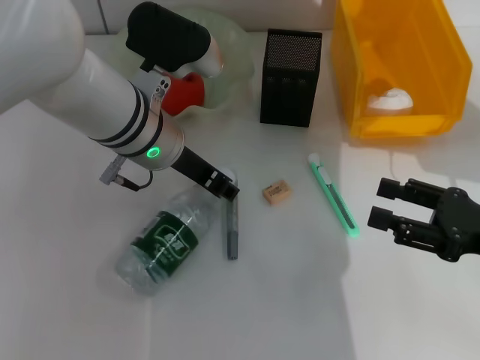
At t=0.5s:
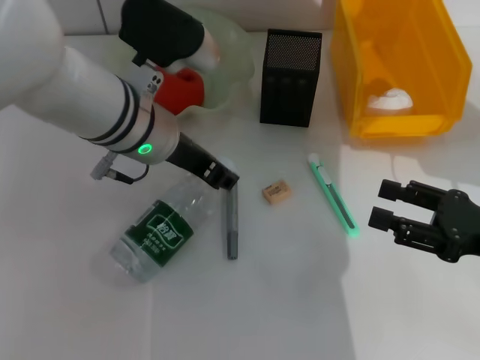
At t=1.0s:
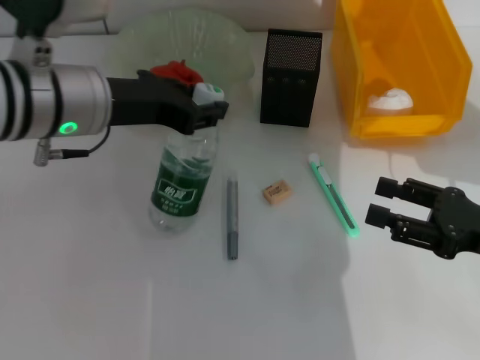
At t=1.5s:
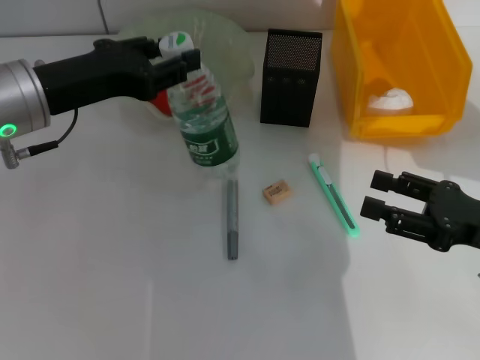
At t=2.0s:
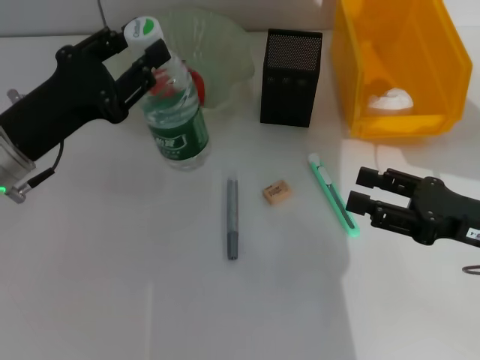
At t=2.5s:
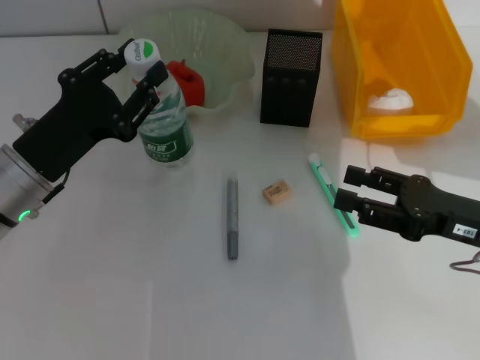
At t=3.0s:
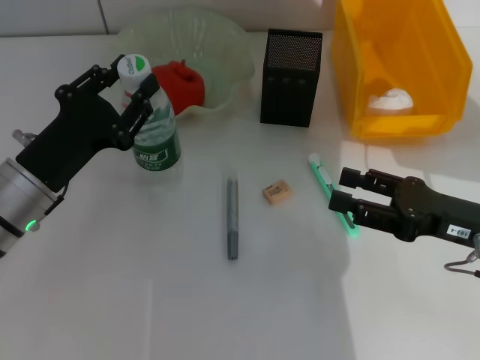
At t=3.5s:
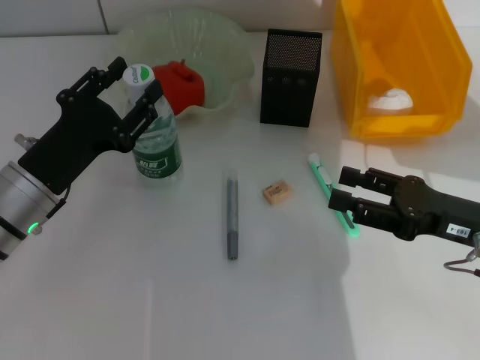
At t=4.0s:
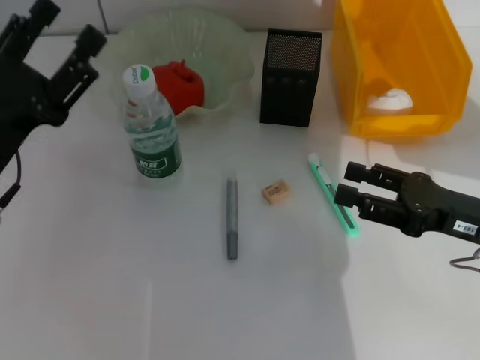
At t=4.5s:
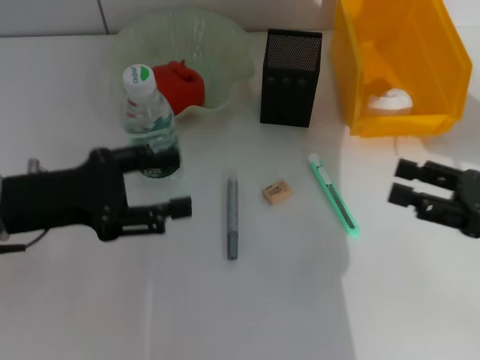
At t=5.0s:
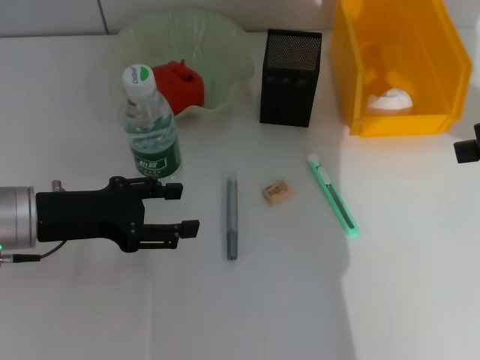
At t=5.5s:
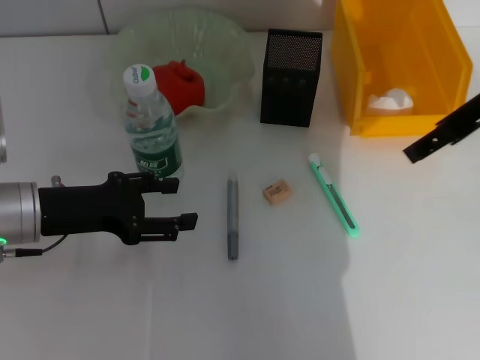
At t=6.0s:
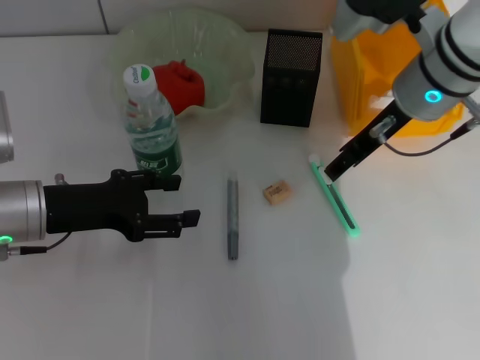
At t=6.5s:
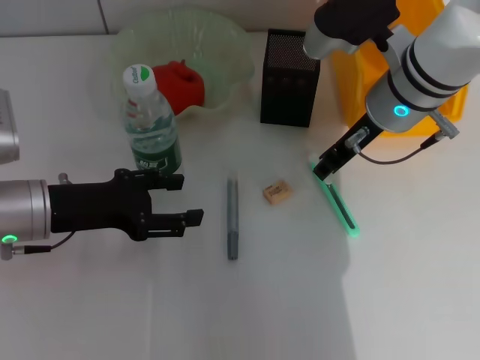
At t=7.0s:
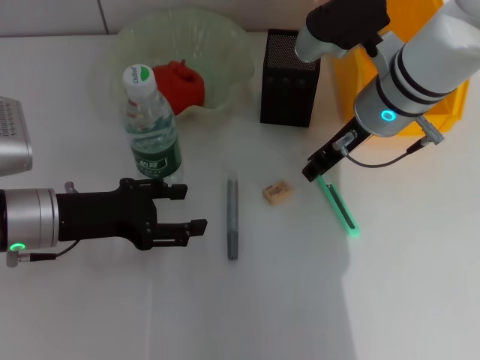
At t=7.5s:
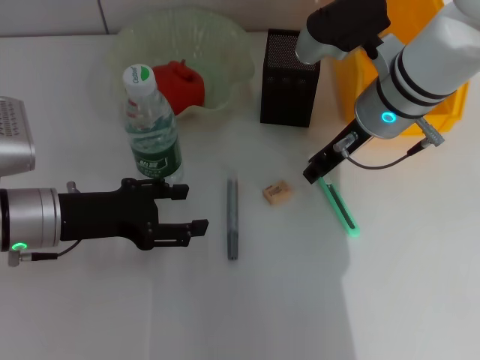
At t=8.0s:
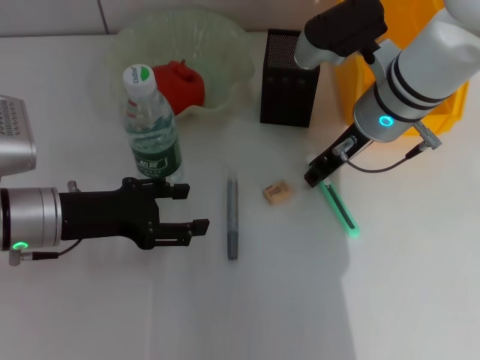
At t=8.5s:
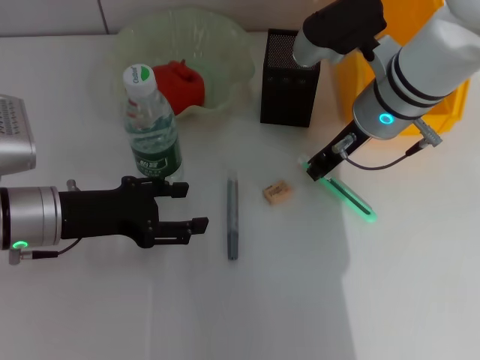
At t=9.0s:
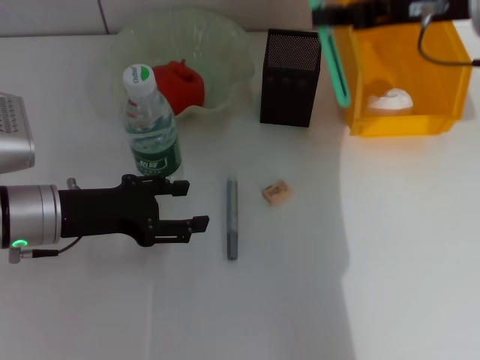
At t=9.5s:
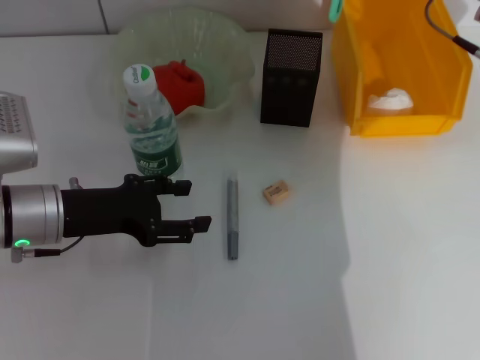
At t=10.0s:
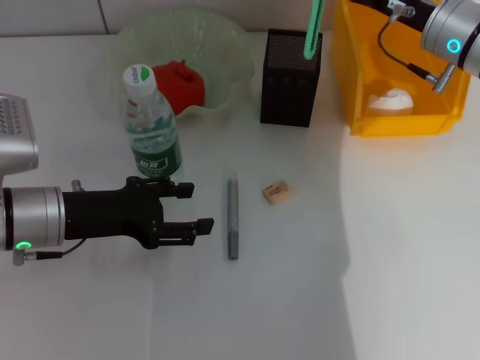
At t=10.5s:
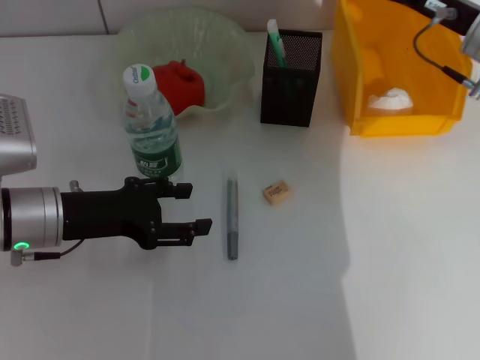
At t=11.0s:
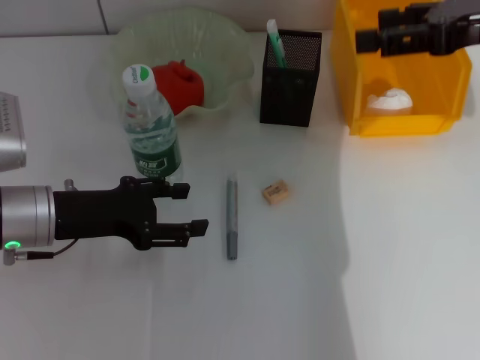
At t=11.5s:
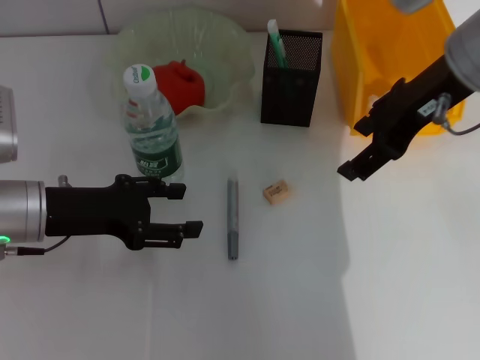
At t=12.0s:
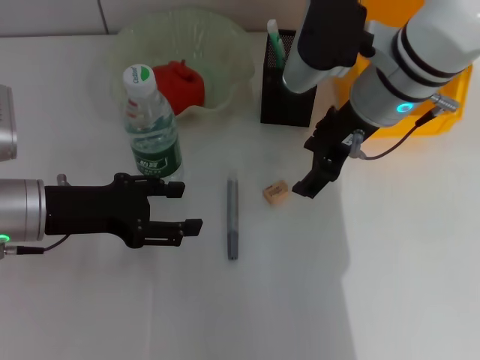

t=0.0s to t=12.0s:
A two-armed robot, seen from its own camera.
Step, t=0.5s to t=4.0s: Place the water bottle on the table with the left hand.
Step, t=4.5s to t=8.0s: Grab the blue utility knife with the right hand.
Step, t=8.5s to t=10.0s: Place the blue utility knife into the pen holder with the right hand.
t=0.0s to t=2.0s: The left gripper is displaced to the left and backward by some 15 cm.
t=2.0s to t=4.0s: The left gripper opens.
t=4.0s to t=6.0s: The right gripper is displaced forward, to the left and upward by some 20 cm.
t=6.0s to t=8.0s: The right gripper closes its fingers.
t=8.0s to t=10.0s: The right gripper shifts about 10 cm to the right.
t=10.0s to t=12.0s: The right gripper shifts approximately 10 cm to the left, and opens its fingers.

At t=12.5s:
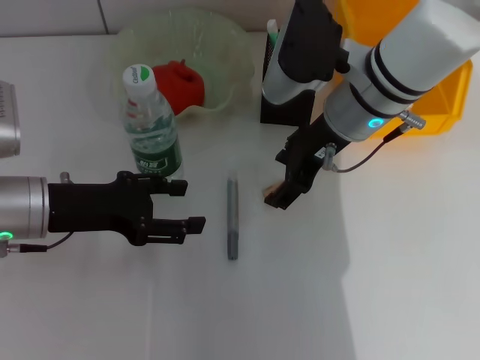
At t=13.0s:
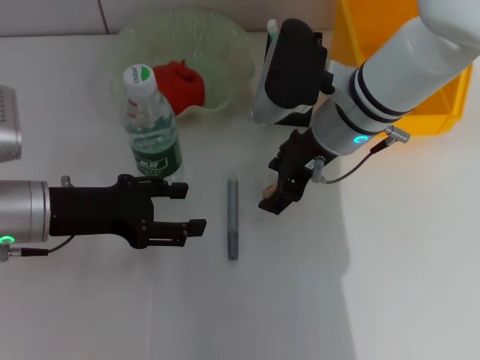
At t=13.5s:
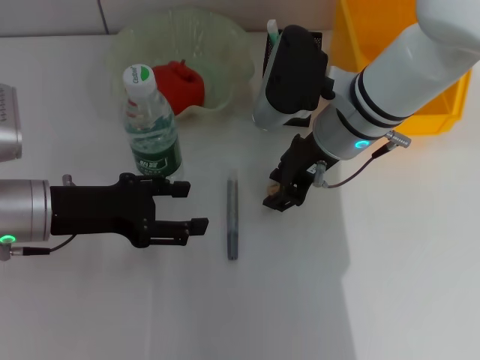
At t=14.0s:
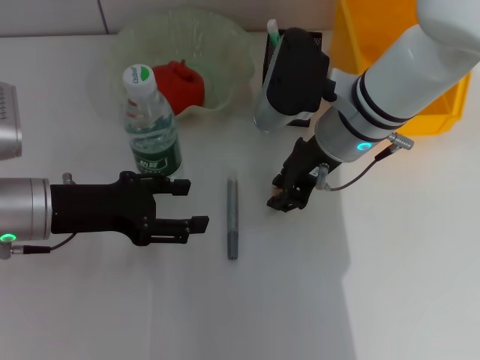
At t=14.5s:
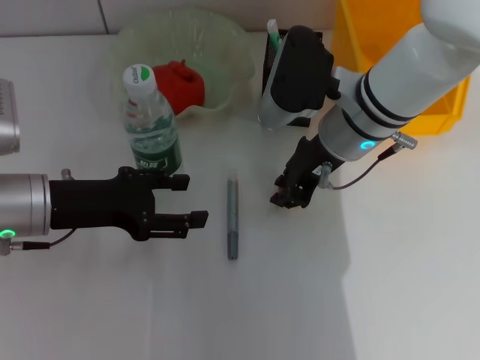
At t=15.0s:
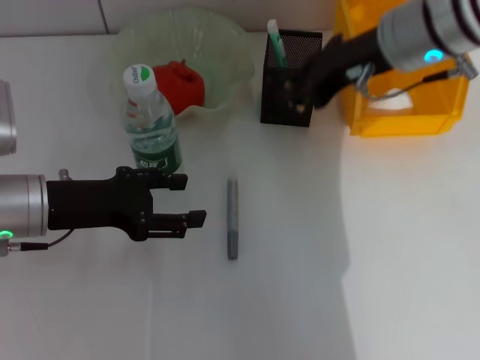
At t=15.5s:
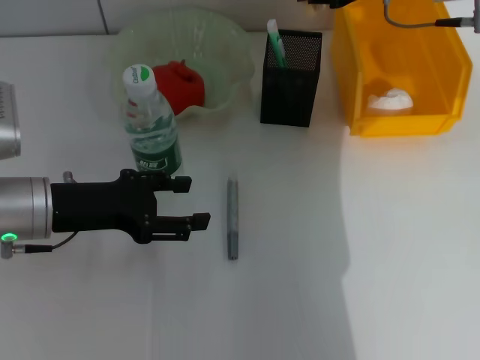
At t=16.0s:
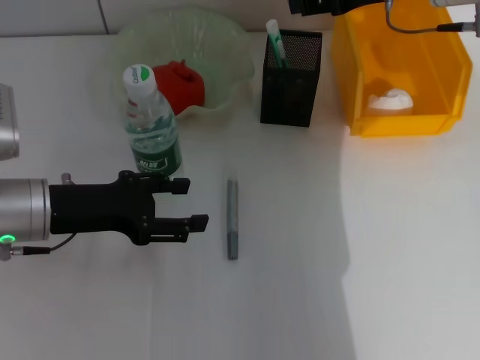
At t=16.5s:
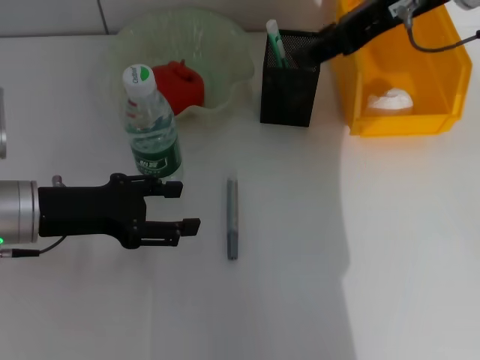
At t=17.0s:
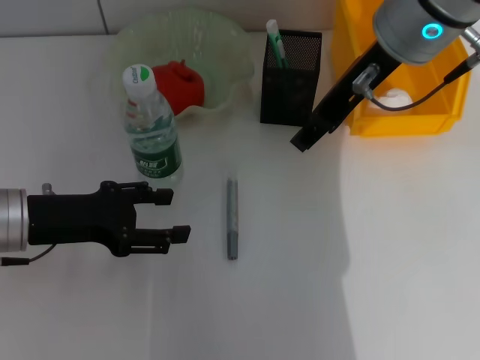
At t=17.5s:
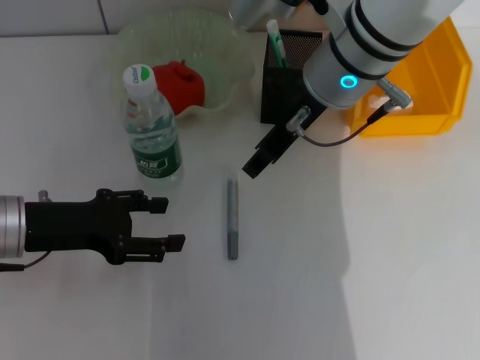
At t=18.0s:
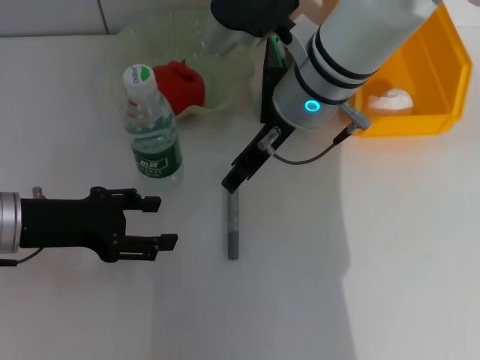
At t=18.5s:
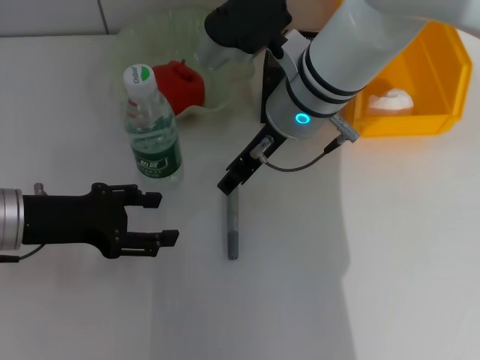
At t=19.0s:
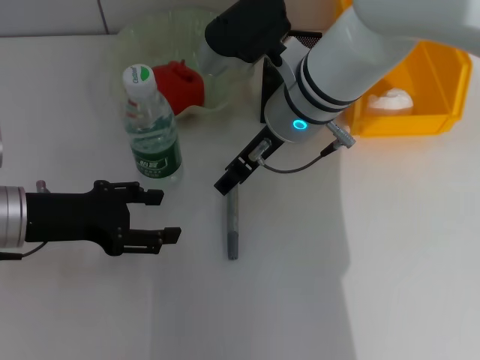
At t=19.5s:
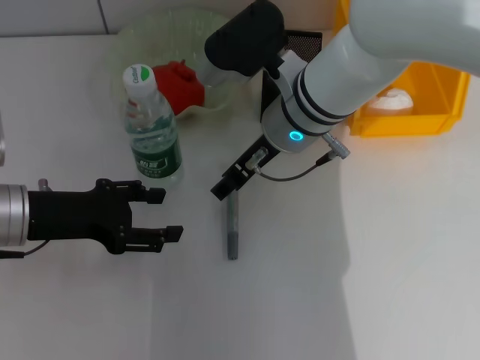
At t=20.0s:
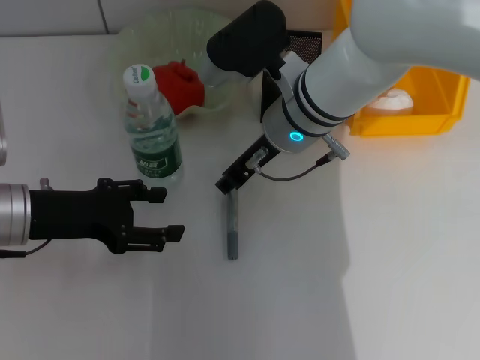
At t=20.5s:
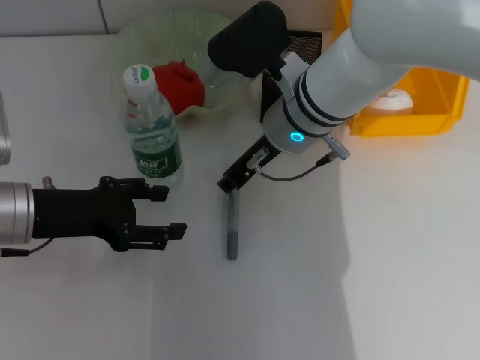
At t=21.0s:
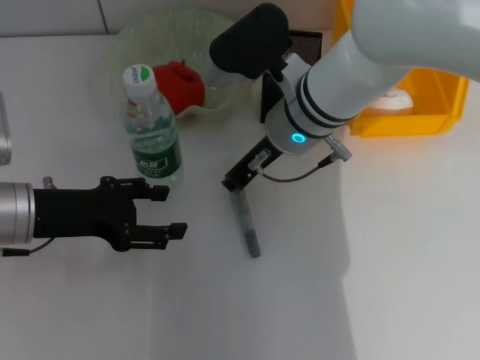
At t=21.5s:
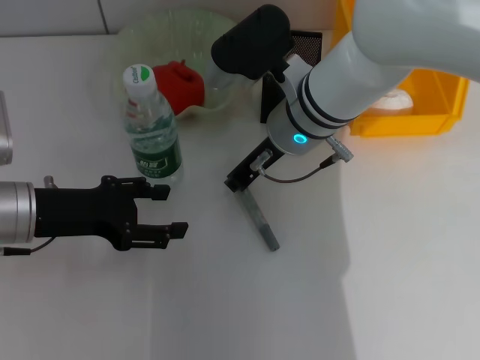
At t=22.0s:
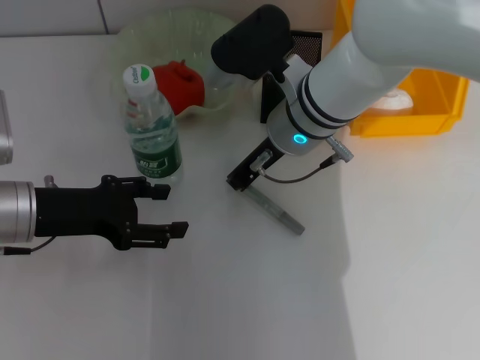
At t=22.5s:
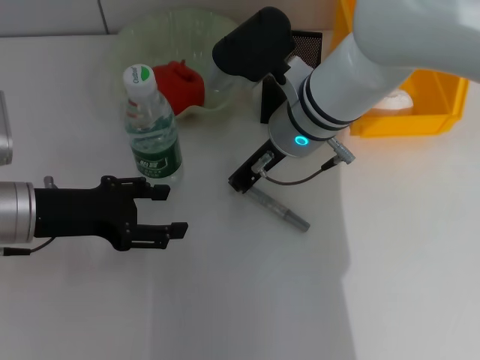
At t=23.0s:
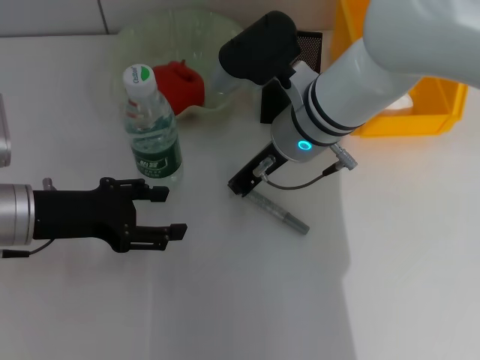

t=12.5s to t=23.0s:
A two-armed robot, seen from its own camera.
Step, t=14.5s to t=16.0s: Put the eraser into the pen holder with the right hand.
Step, t=16.5s to t=22.5s: Grab the gray glue with the right hand.
t=12.5s to t=14.5s: The right gripper closes.
t=14.5s to t=16.5s: The right gripper goes about 15 cm upward, and opens up.
t=16.5s to t=19.0s: The right gripper goes some 20 cm downward and to the left.
t=19.0s to t=21.0s: The right gripper closes its fingers.
t=21.0s to t=23.0s: The right gripper closes up.

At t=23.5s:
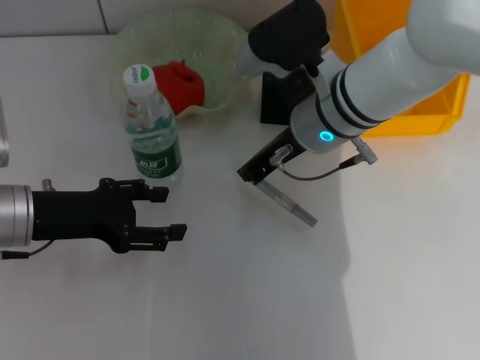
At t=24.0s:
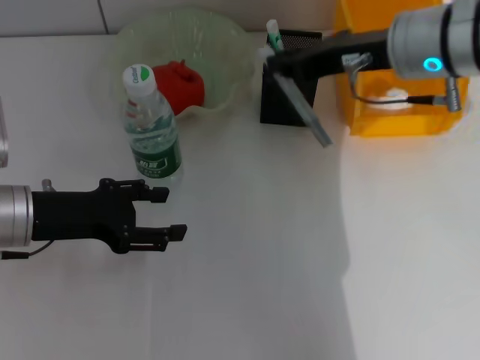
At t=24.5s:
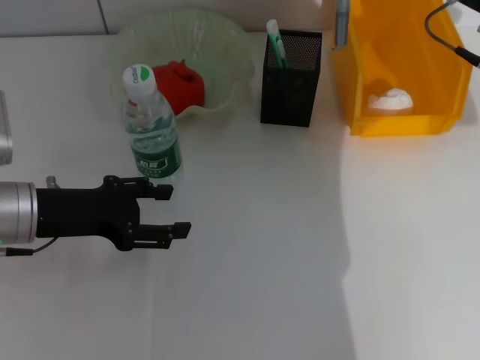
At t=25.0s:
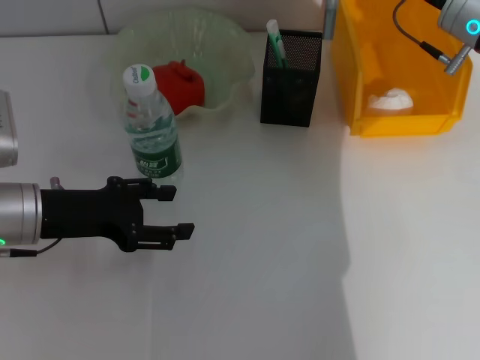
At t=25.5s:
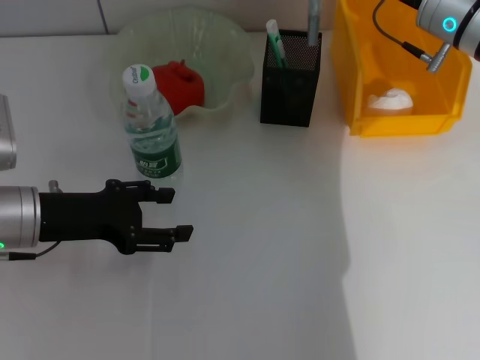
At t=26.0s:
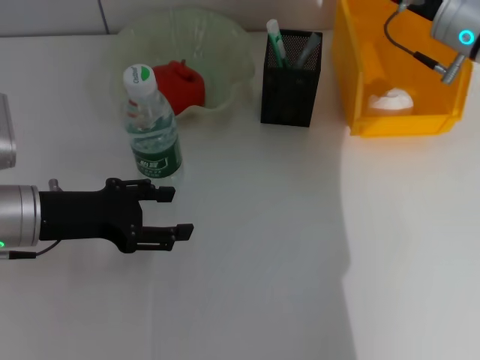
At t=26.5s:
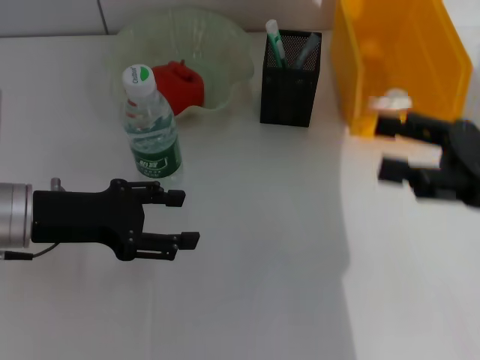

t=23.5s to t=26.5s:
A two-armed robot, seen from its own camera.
Step, t=23.5s to t=26.0s: Place the gray glue into the pen holder with the right hand.
t=23.5s to t=25.0s: The right gripper shifts approximately 15 cm to the right.
t=25.0s to t=26.5s: The right gripper travels backward and to the right by approximately 15 cm, and opens.
